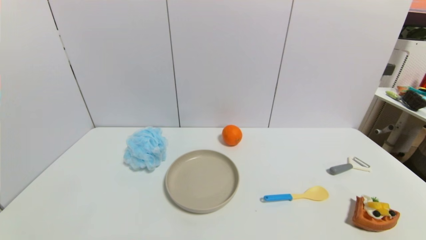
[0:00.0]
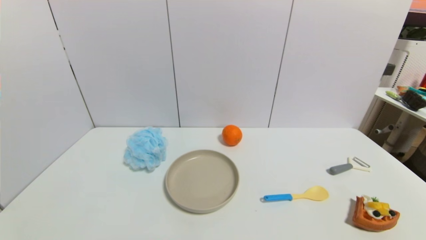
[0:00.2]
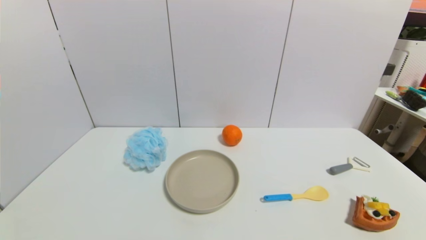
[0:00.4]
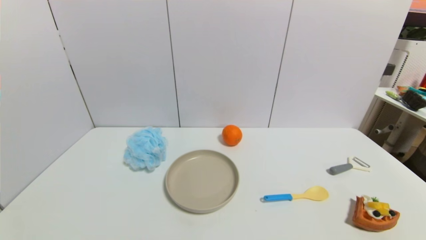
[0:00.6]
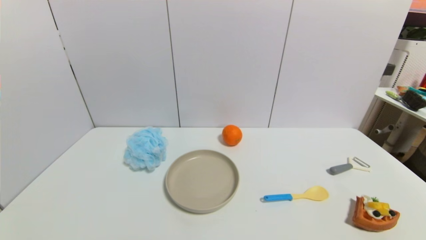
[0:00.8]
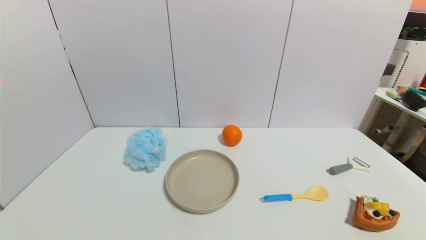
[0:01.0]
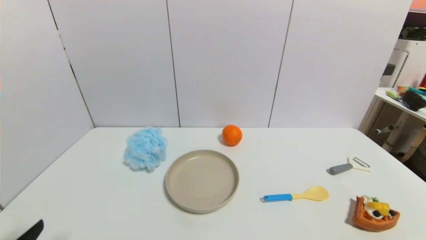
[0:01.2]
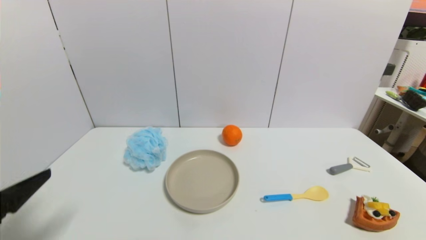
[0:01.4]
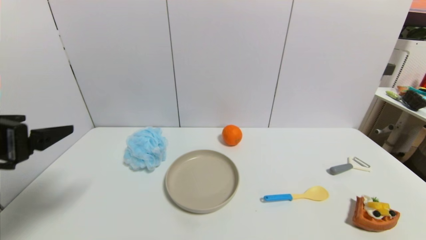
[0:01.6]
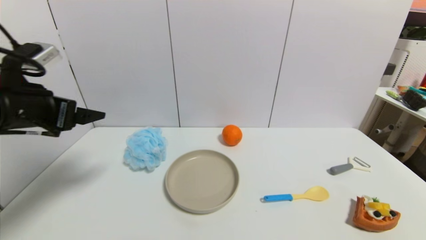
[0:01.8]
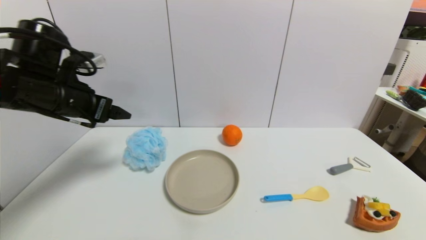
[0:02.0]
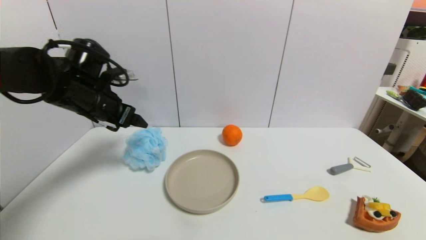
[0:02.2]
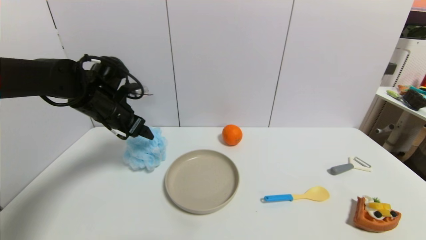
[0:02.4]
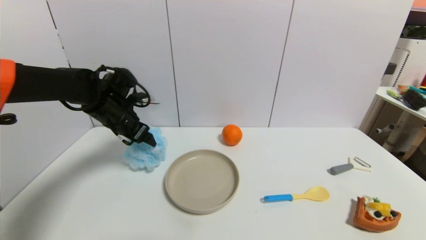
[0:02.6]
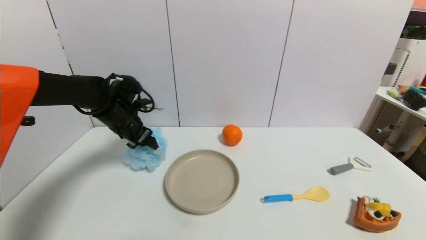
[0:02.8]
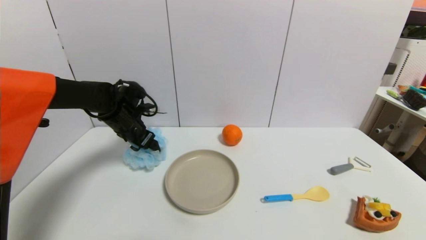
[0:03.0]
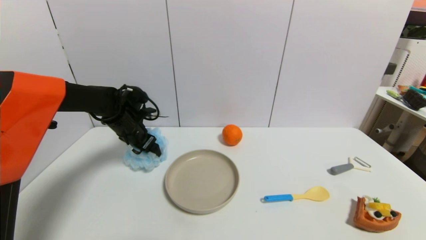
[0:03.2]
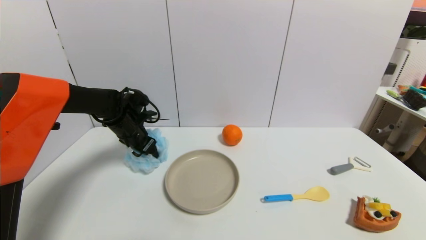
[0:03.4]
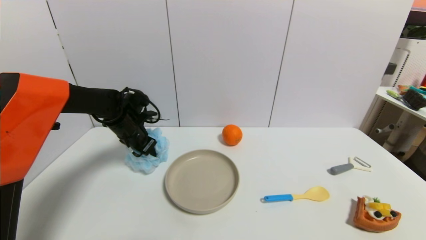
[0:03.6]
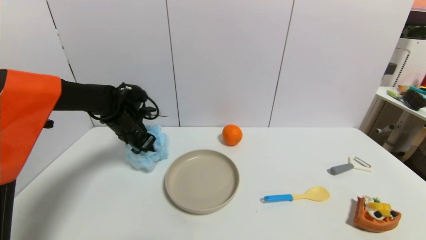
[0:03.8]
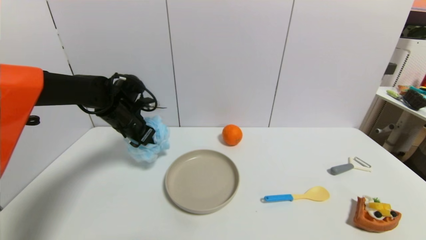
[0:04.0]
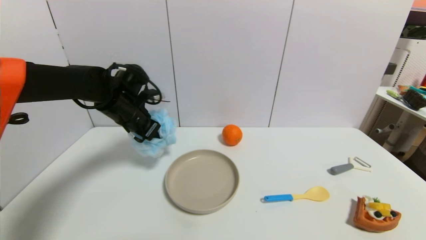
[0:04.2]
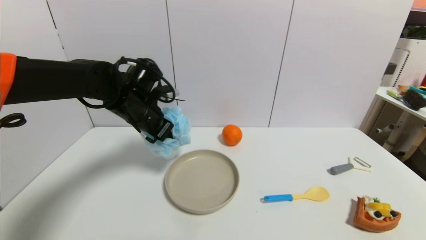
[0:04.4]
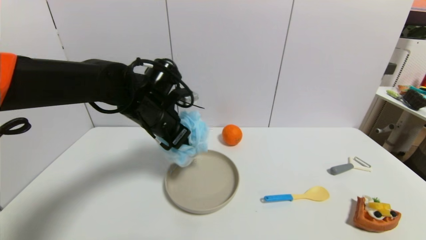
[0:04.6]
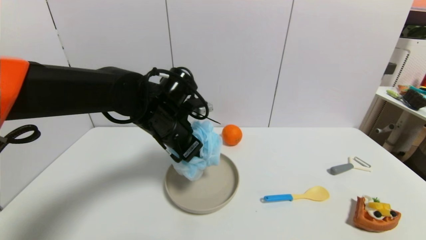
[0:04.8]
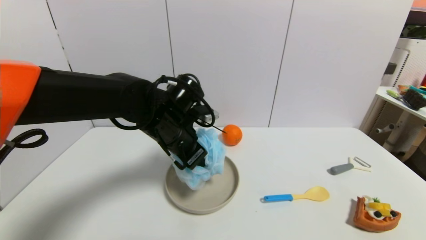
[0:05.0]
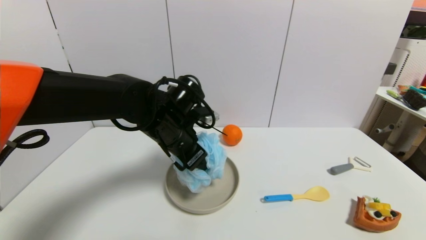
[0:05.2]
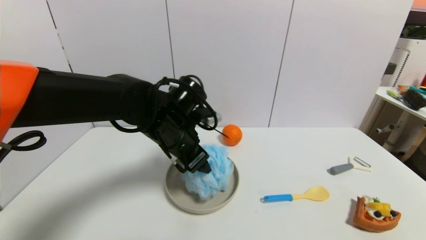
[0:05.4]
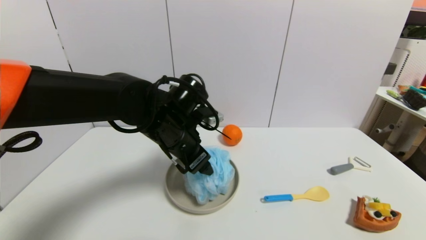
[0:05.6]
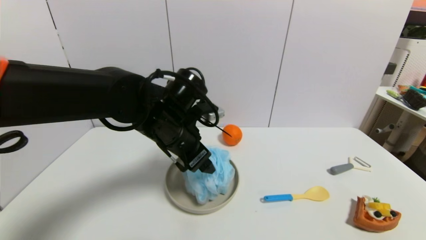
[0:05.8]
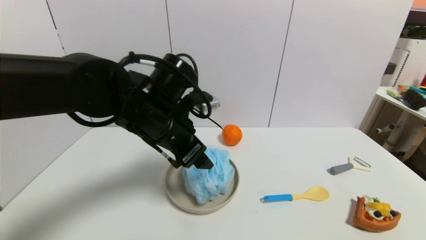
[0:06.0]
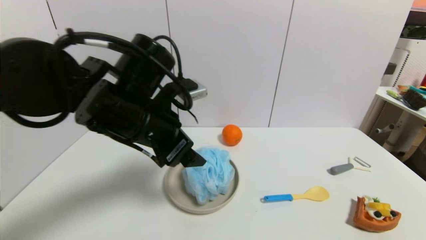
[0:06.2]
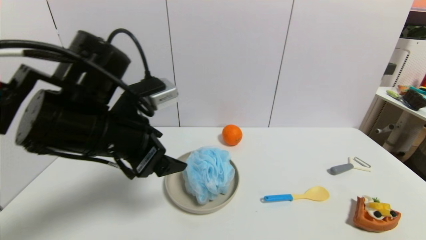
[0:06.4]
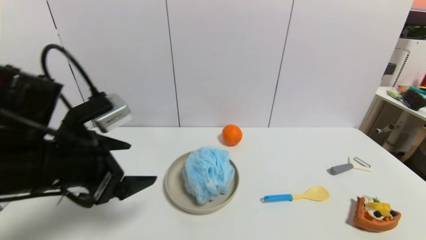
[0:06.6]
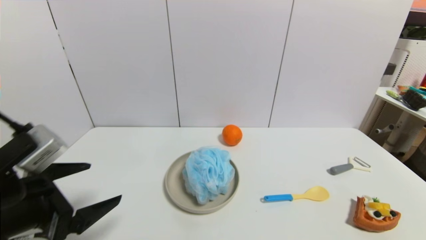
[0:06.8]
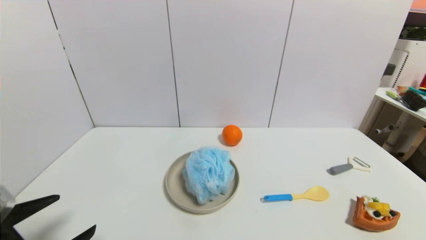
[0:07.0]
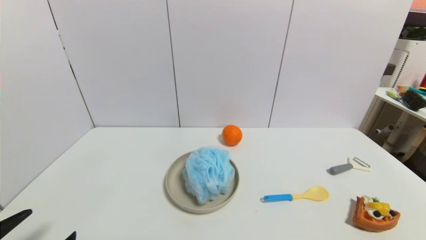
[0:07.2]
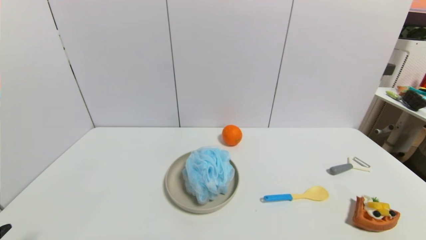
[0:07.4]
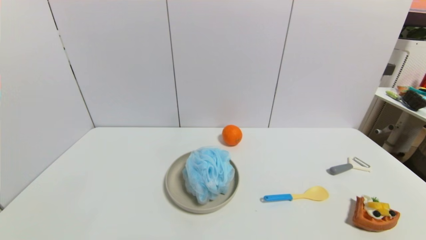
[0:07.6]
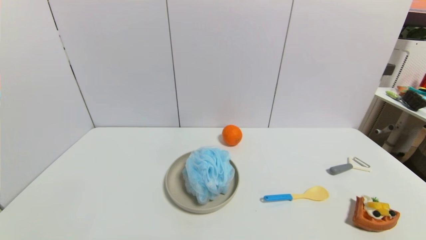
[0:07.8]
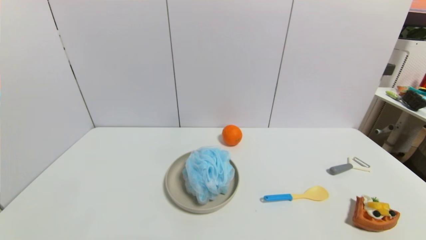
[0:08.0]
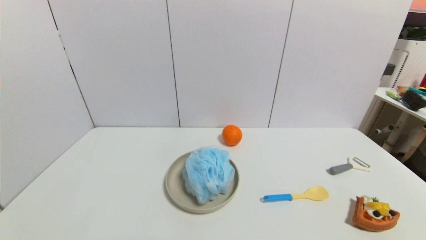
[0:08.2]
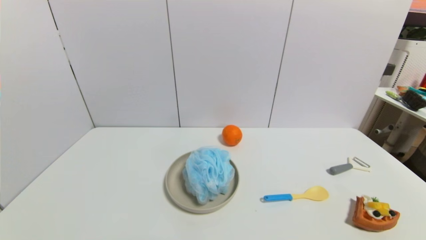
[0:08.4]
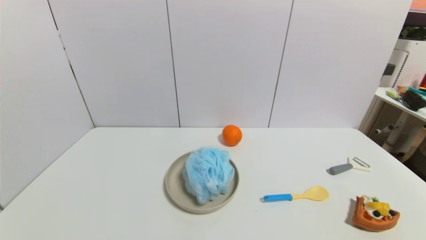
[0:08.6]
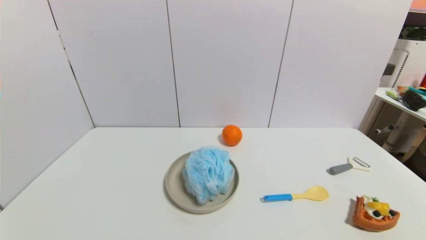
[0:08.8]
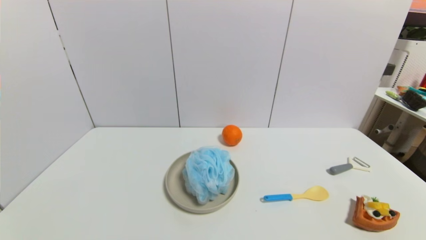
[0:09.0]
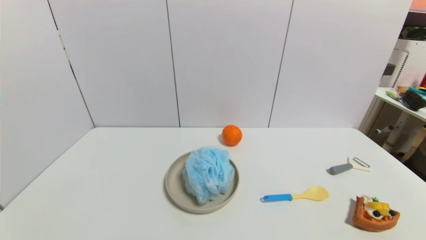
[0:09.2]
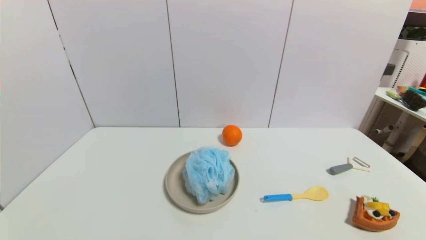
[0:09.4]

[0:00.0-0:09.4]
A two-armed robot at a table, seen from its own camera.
Task of the whole recording: use a gripper to pick the target object and place on the brown plate.
Step, 0:00.0 to 0:03.6: Grasp the shower sphere with the left gripper.
Step, 0:03.8 to 0:06.0: Place the shower sphere on the brown plate with the left gripper.
0:00.0 to 0:01.6: The left gripper goes about 25 cm upward and forward.
0:01.6 to 0:03.2: The left gripper moves forward and downward, approximately 30 cm.
0:03.2 to 0:04.8: The left gripper heads to the right, backward and upward, covering approximately 20 cm, and closes up.
0:04.8 to 0:06.2: The left gripper heads backward and upward, covering some 10 cm, and opens.
0:06.2 to 0:07.8: The left gripper travels backward, downward and to the left by approximately 35 cm.
